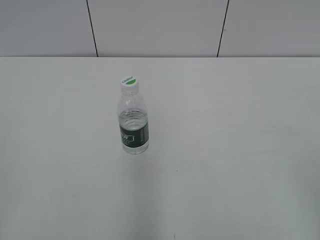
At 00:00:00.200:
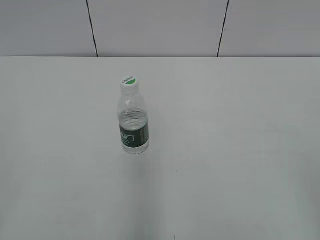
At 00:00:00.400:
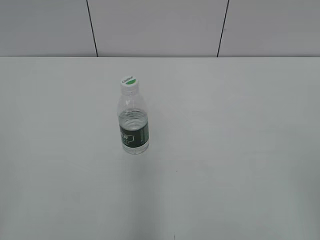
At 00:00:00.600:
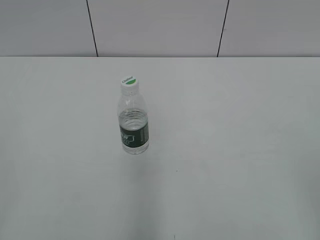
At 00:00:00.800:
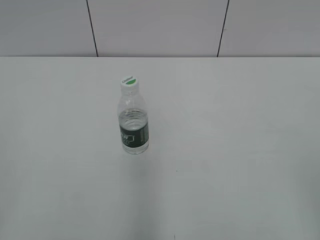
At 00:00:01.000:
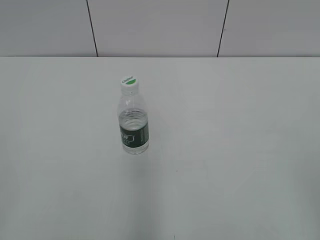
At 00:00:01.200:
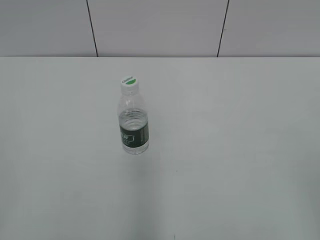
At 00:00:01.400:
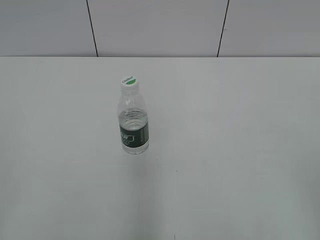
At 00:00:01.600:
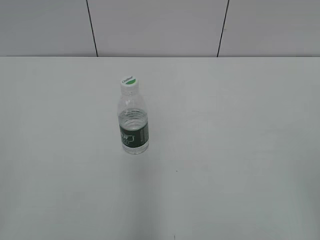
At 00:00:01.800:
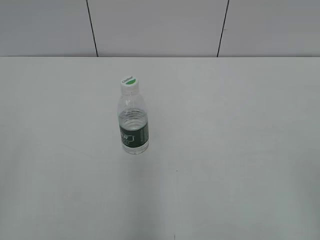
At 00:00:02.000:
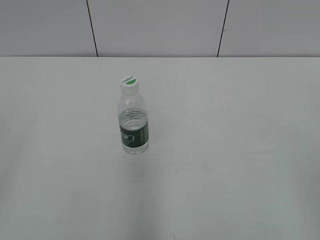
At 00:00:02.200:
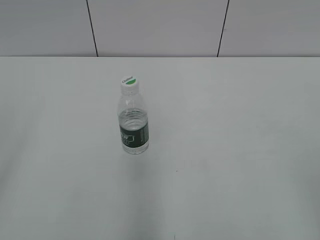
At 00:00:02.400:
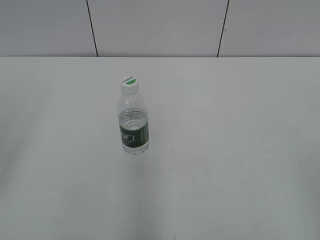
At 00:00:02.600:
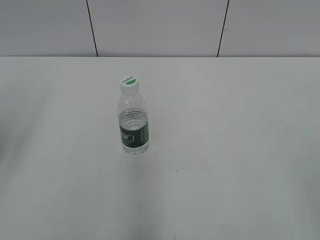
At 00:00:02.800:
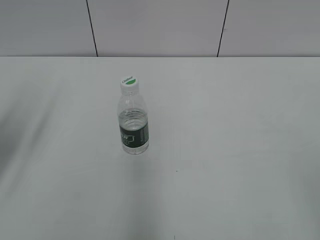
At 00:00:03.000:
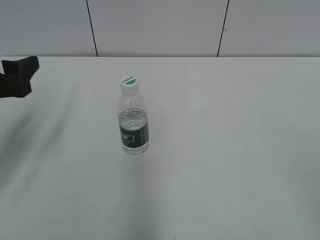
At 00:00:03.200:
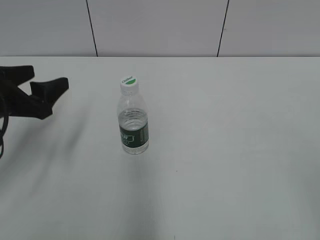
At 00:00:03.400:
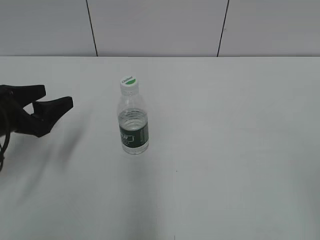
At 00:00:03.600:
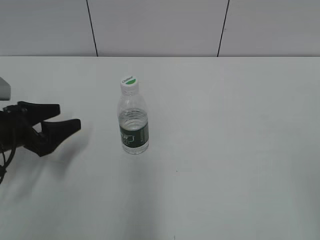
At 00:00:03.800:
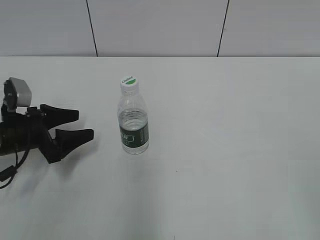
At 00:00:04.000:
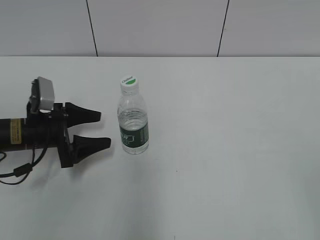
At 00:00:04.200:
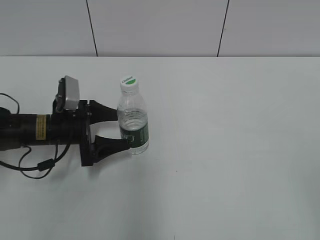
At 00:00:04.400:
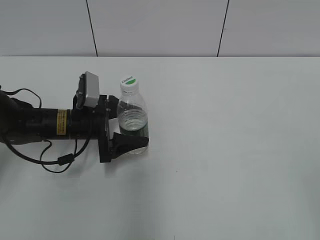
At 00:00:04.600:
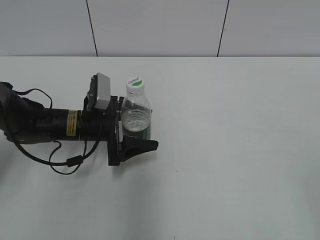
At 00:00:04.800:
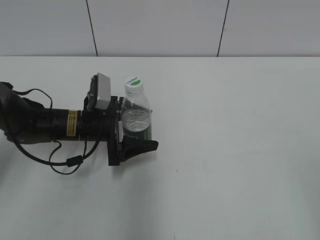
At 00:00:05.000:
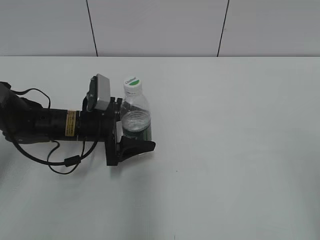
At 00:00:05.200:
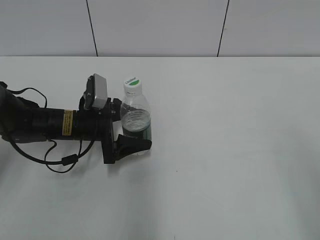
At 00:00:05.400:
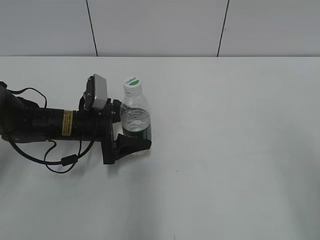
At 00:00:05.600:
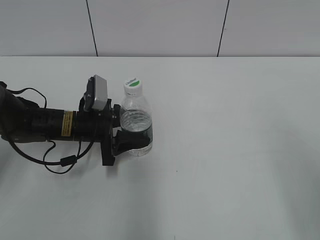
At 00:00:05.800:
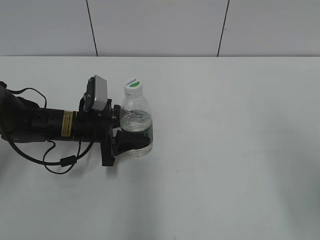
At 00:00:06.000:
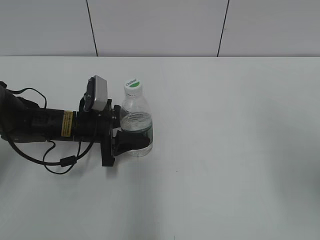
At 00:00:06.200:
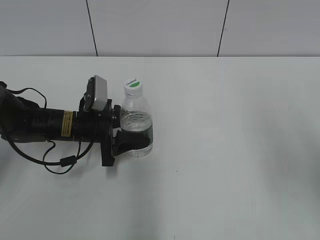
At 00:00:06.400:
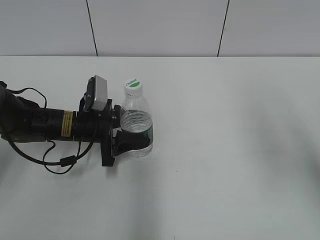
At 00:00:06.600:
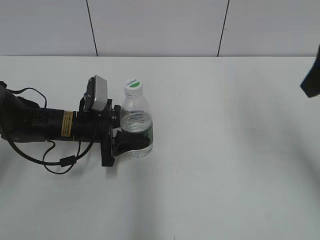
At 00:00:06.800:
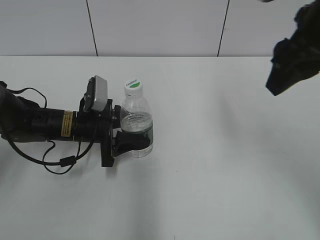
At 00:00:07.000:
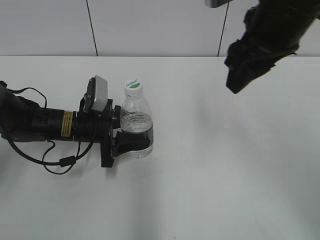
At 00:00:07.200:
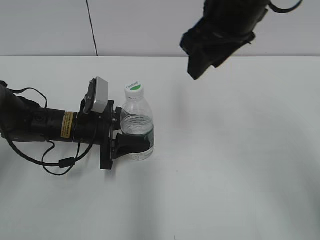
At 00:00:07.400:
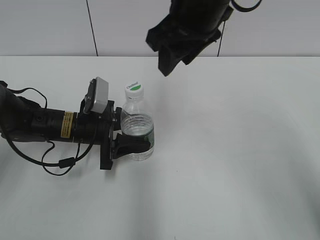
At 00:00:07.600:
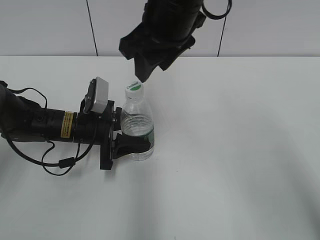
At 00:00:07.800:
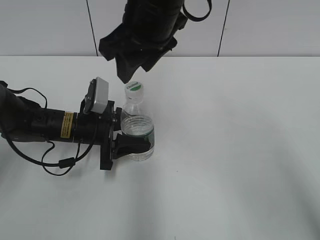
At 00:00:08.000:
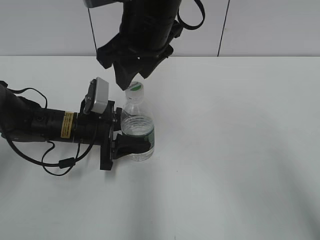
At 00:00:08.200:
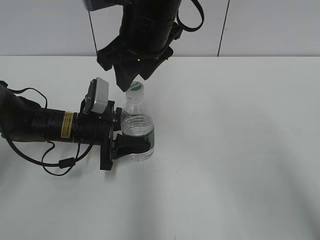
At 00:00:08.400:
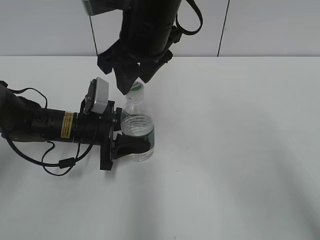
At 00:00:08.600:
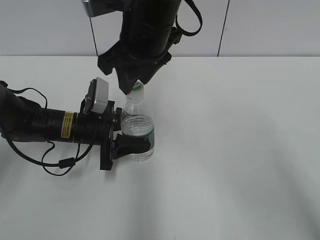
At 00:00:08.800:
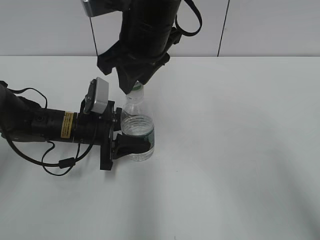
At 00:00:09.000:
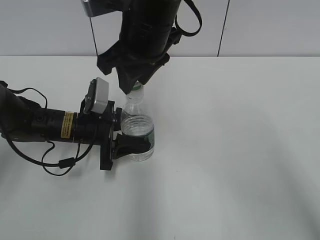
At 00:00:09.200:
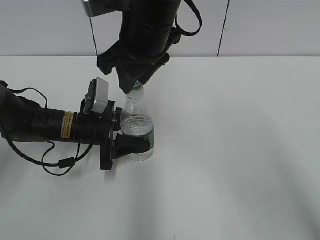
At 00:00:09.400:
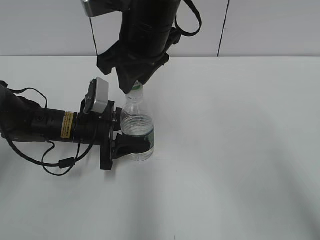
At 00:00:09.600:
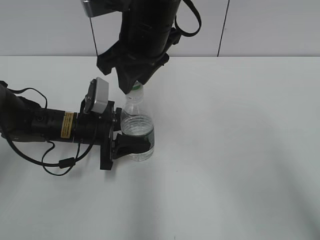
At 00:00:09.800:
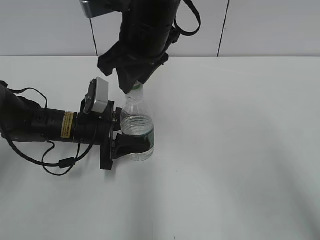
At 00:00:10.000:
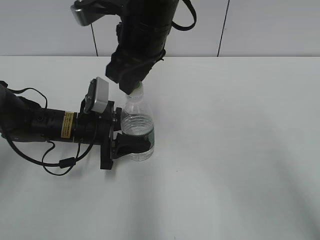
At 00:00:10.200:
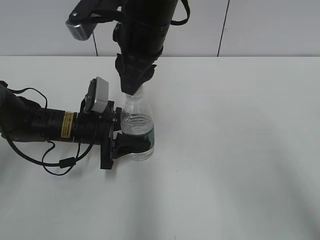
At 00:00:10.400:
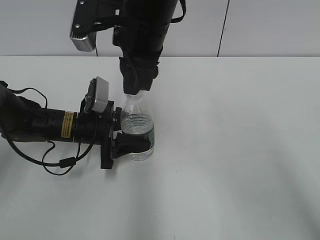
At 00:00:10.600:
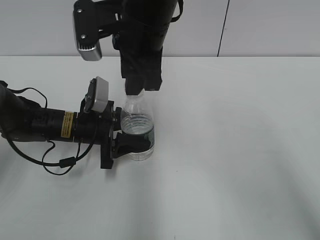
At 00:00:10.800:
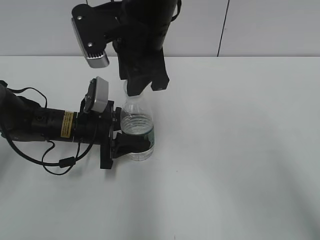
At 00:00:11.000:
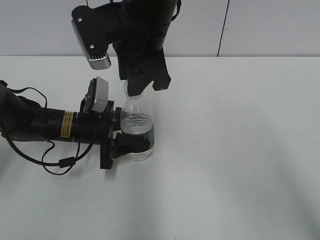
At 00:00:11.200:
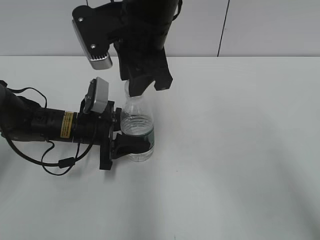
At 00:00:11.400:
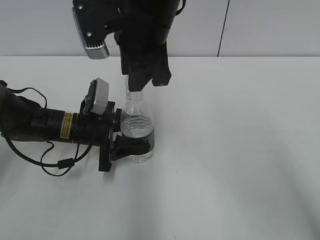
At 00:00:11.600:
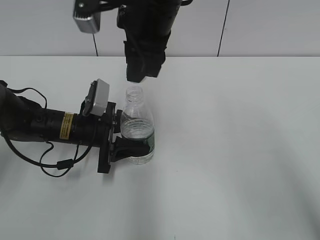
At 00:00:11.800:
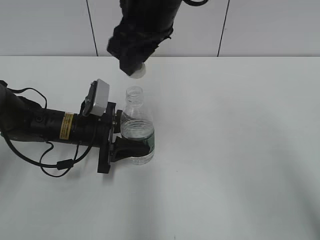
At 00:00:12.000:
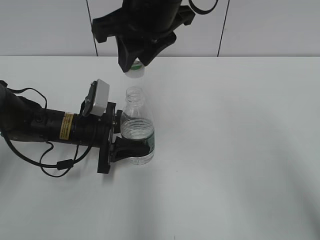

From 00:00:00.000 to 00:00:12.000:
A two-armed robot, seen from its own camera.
Step, from 00:00:00.000 to 00:00:05.600: Grasp the bottle and move it to the center of the table with the left gripper.
Step, from 00:00:05.800 to 00:00:11.800: Unscrew the bottle cap with the right gripper while holding the bottle with the left gripper.
From 00:00:01.600 to 00:00:03.000: The left gripper travels forward by approximately 25 cm, and opens up.
From 00:00:03.000 to 00:00:04.400: The left gripper goes some 20 cm downward, to the right and forward.
From 00:00:04.400 to 00:00:06.000: The right gripper is displaced forward and upward by roughly 15 cm. The left gripper closes.
From 00:00:06.000 to 00:00:07.600: The right gripper is displaced to the left and forward by approximately 30 cm, and closes.
From 00:00:07.600 to 00:00:09.000: The grippers make only small movements.

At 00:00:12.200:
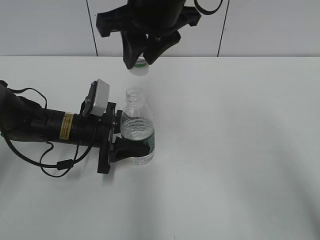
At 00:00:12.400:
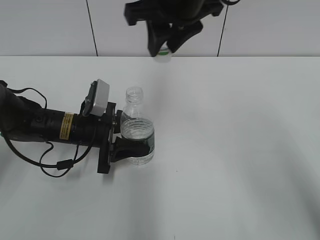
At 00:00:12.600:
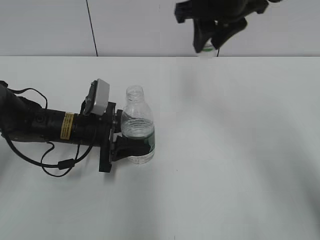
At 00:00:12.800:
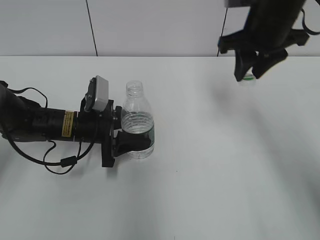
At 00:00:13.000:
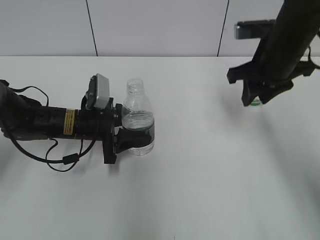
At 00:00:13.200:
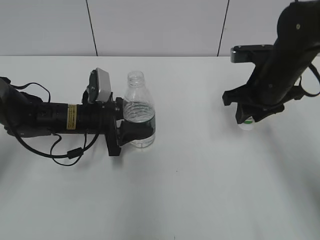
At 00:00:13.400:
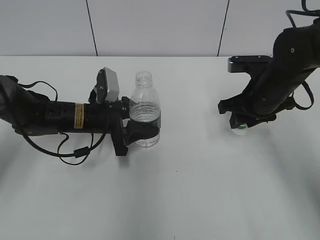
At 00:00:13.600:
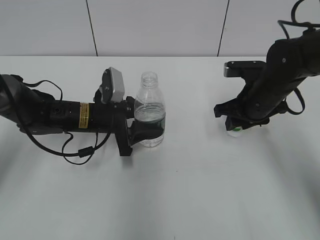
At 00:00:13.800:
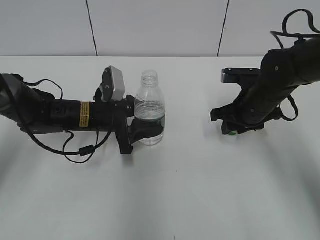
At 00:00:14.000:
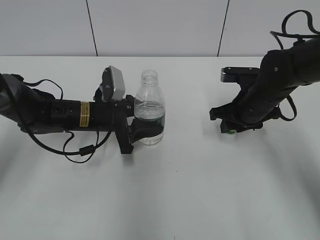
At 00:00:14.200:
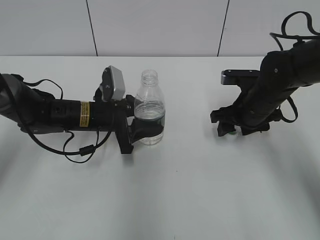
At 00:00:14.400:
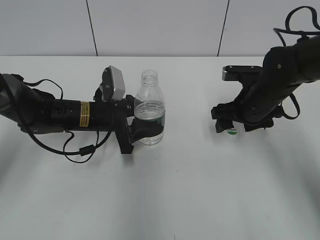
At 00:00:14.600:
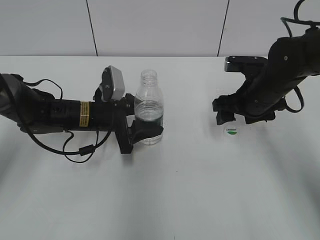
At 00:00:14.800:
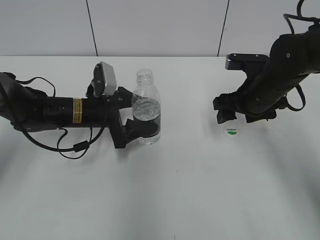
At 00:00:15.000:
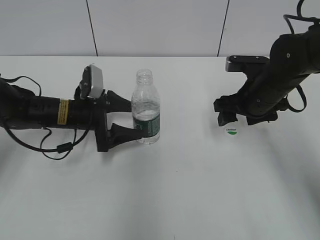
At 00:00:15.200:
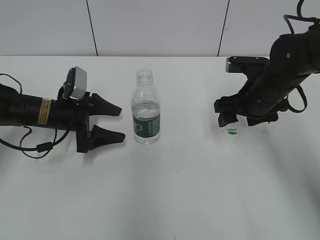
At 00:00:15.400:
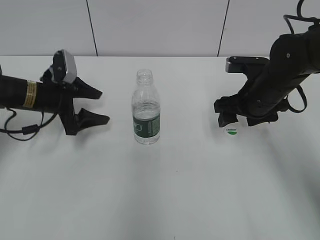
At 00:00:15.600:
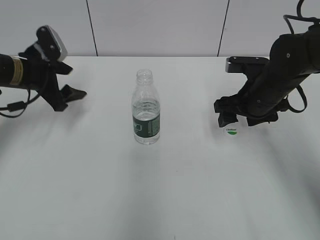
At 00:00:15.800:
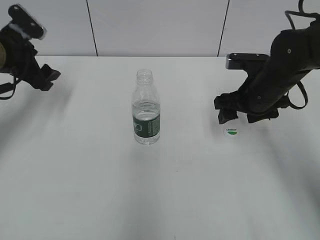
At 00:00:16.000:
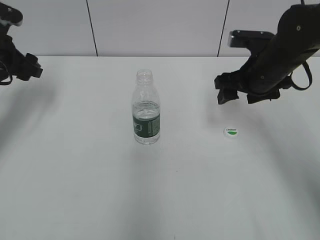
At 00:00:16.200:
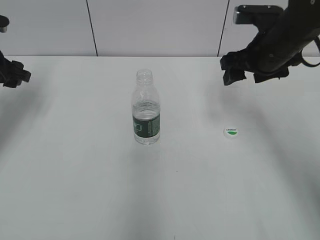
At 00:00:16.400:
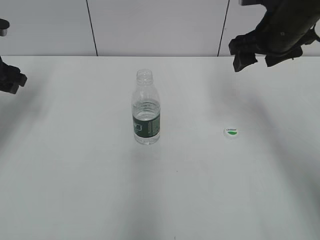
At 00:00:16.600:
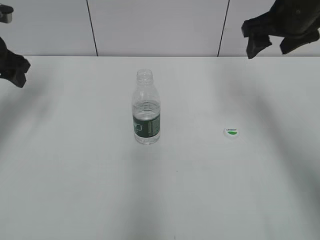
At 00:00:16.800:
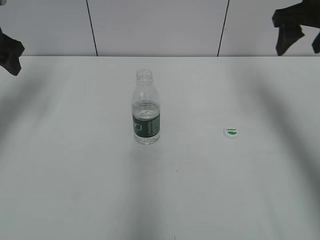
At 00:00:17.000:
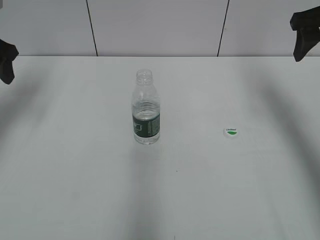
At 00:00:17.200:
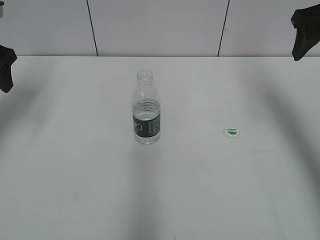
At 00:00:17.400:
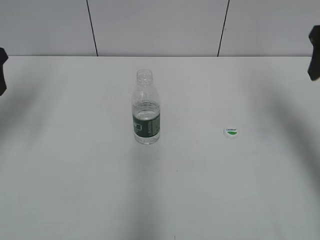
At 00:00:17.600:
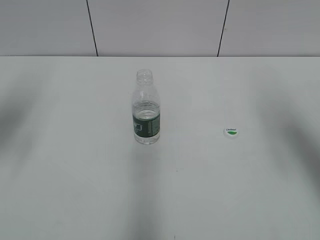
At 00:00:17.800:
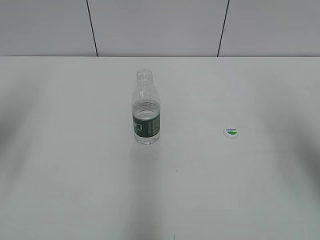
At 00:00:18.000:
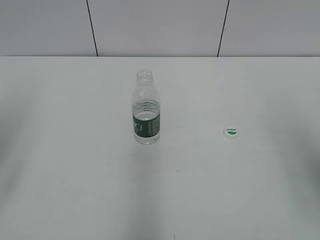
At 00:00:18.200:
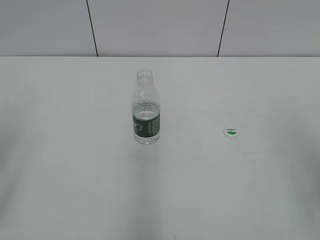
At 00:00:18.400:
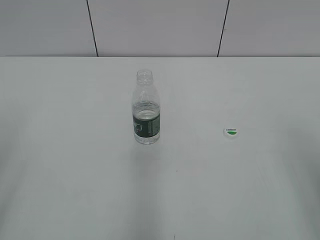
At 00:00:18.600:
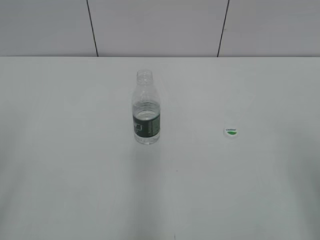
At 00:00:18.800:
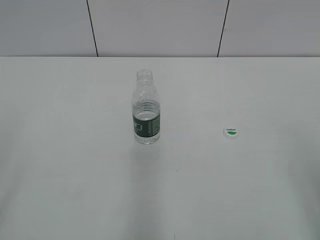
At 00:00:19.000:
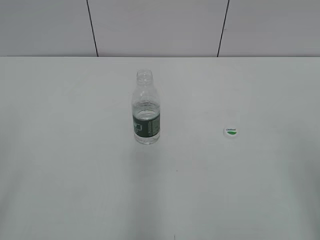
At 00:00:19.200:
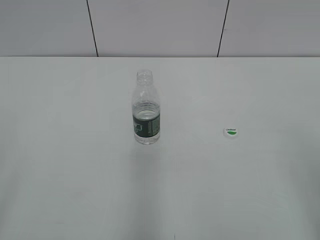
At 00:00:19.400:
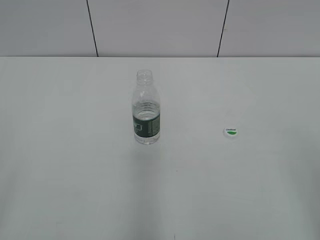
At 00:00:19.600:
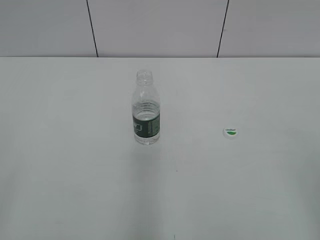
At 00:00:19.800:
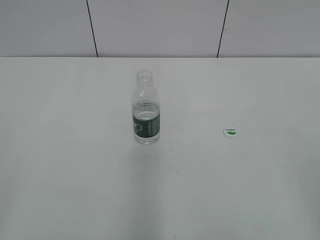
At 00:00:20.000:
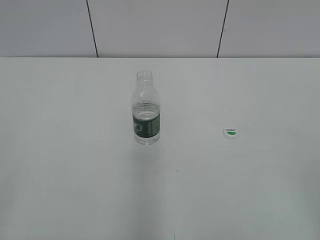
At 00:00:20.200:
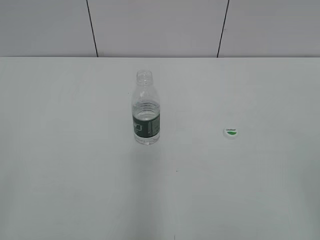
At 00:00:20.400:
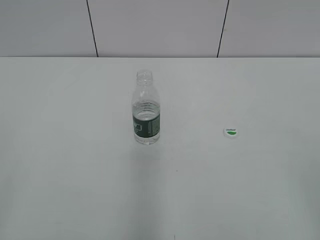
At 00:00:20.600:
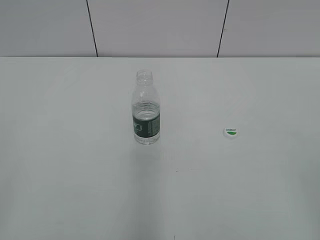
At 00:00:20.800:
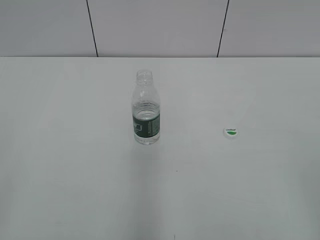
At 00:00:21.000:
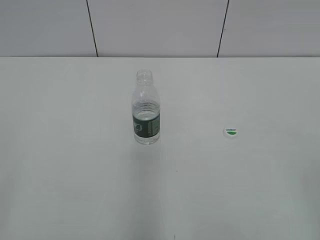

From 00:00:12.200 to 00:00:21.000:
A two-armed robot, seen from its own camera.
Step, from 00:00:12.200 to 00:00:14.400: Place the bottle cap on the table with the right gripper.
Step, from 00:00:14.600 to 00:00:15.200: Place the bottle on the table with the left gripper.
From 00:00:12.200 to 00:00:13.600: The right gripper moves downward and to the right, roughly 25 cm.
From 00:00:13.600 to 00:00:15.200: The right gripper opens its fingers; the left gripper moves to the left, some 5 cm, and opens up.
From 00:00:15.200 to 00:00:16.600: The left gripper heads upward and to the left, covering roughly 20 cm. The right gripper heads upward, covering roughly 15 cm.
From 00:00:16.600 to 00:00:18.000: Both grippers travel together backward, some 20 cm.
